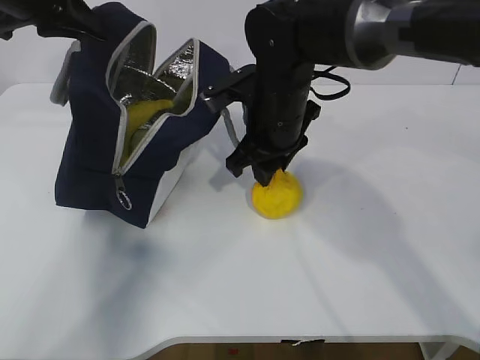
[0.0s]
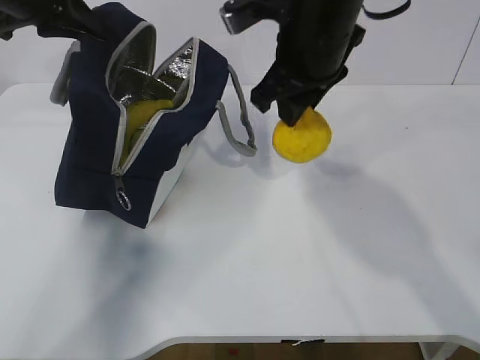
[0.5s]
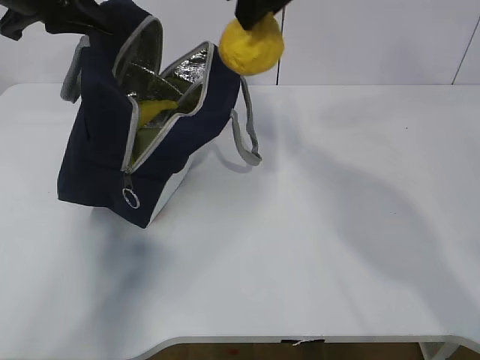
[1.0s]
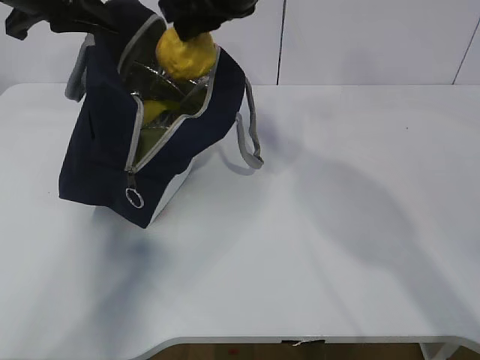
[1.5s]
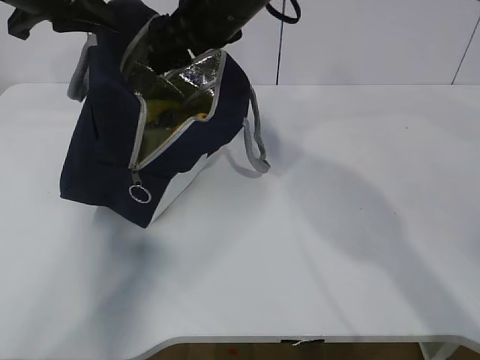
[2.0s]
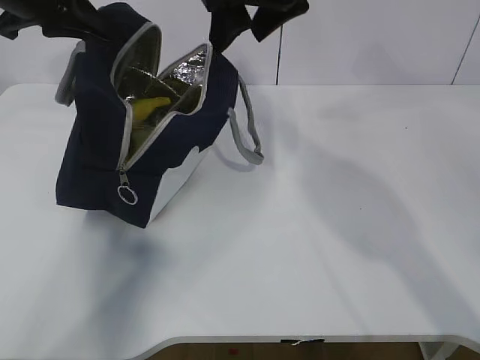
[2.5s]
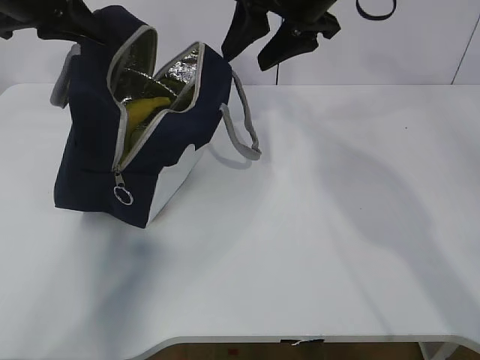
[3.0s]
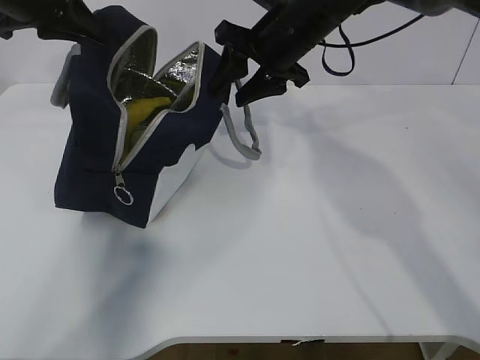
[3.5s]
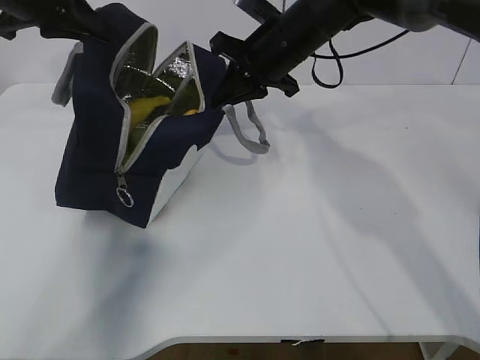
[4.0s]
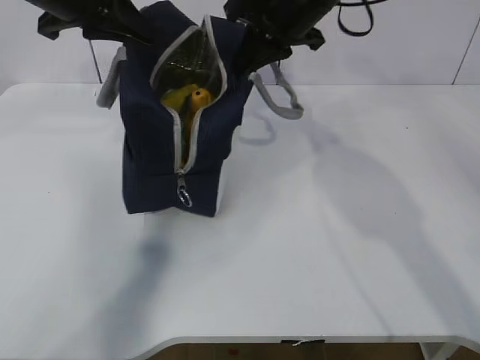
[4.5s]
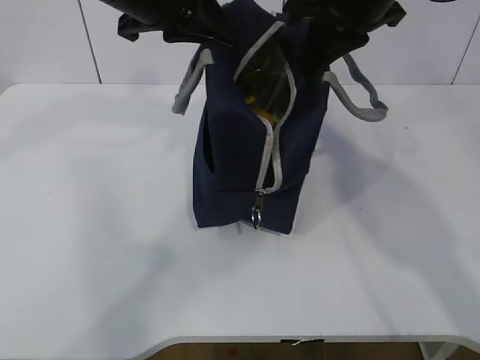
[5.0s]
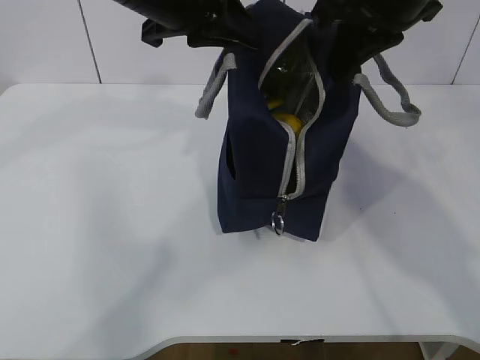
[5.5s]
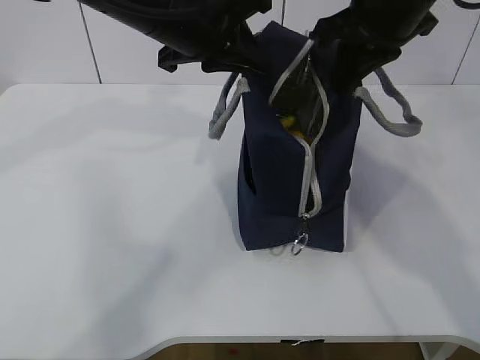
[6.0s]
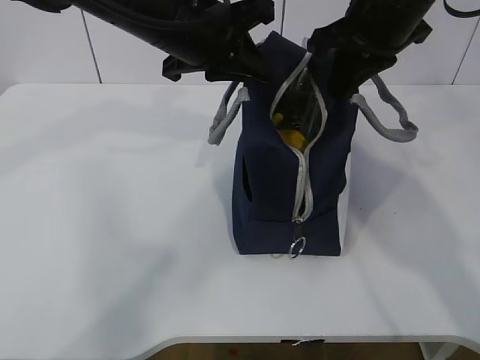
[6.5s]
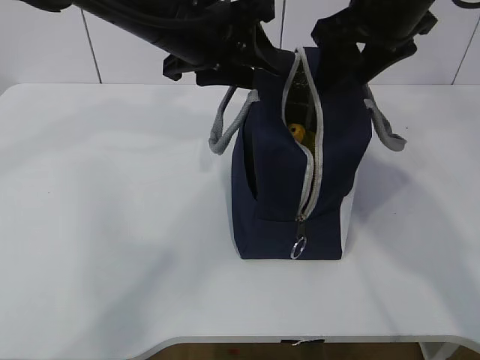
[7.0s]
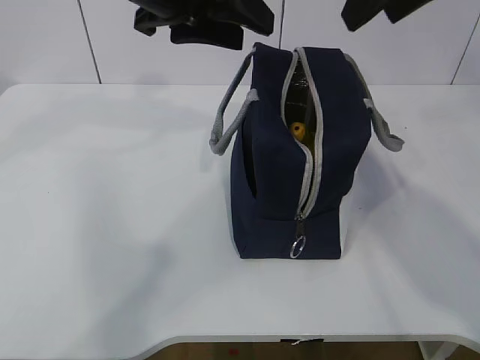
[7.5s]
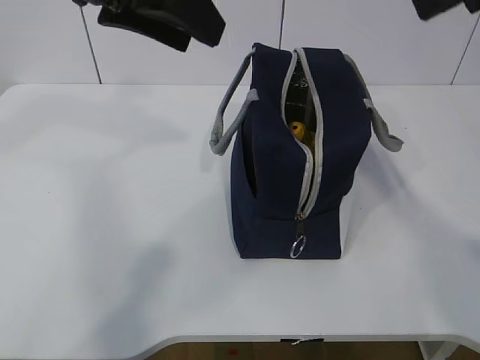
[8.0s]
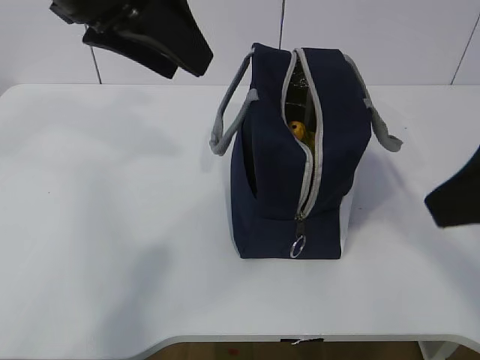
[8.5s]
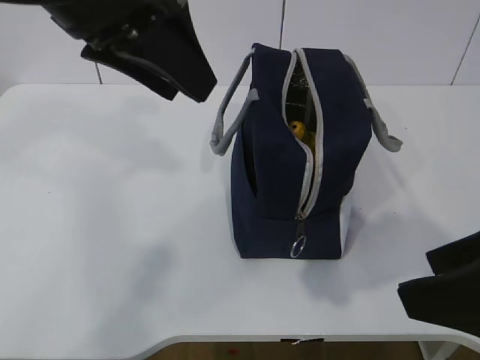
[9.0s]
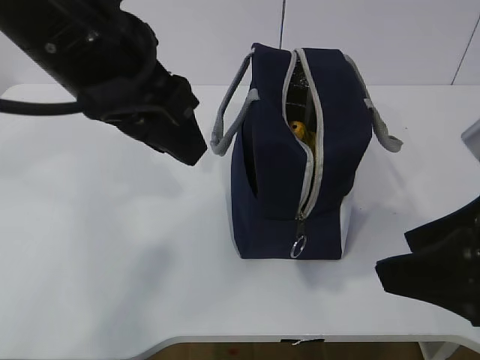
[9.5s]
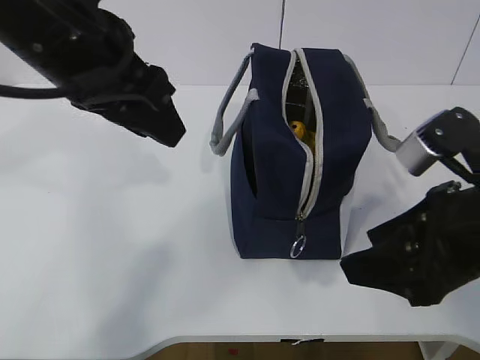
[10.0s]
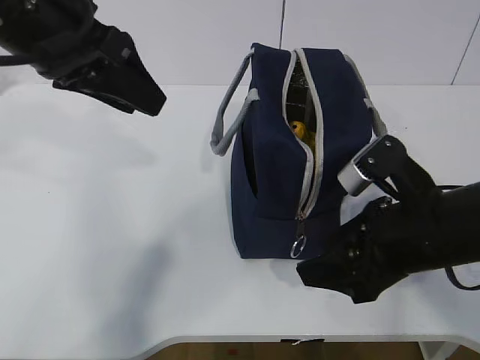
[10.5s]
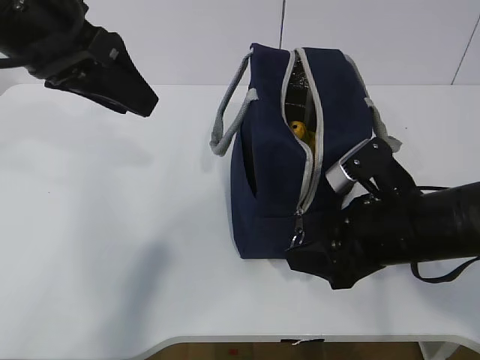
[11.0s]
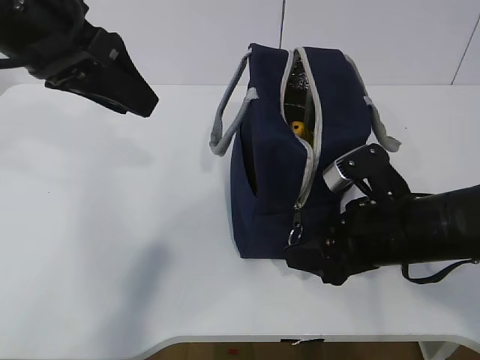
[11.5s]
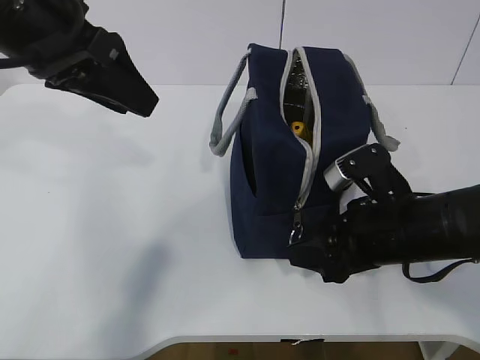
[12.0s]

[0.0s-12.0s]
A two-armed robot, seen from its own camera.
Step, 0.0s to 2.0s: Place the pear into the package with the right gripper.
0.0s to 2.0s: The right gripper travels upward by roughly 10 cm, and opens up.
2.0s to 4.0s: The right gripper is displaced to the right and downward by approximately 10 cm, and closes its fingers.
4.0s to 6.0s: The right gripper goes approximately 15 cm backward, upward and to the right, while the left gripper is displaced to the right by about 15 cm.
6.0s to 8.0s: The left gripper goes approximately 10 cm upward and backward, and opens its fingers. The right gripper goes approximately 15 cm backward and upward, and opens.
8.0s to 10.0s: The right gripper heads downward, covering some 20 cm, while the left gripper moves downward, approximately 5 cm.
10.0s to 12.0s: The left gripper changes place by roughly 5 cm. Meanwhile the right gripper heads downward and forward, covering roughly 10 cm.

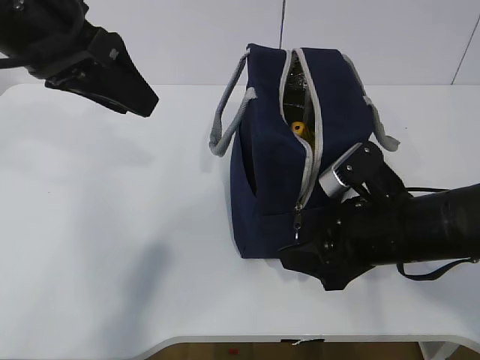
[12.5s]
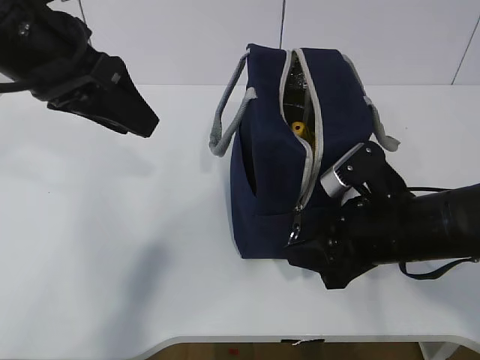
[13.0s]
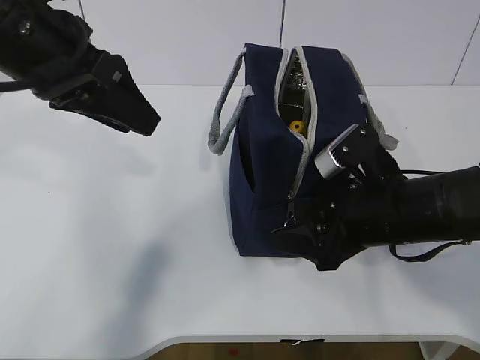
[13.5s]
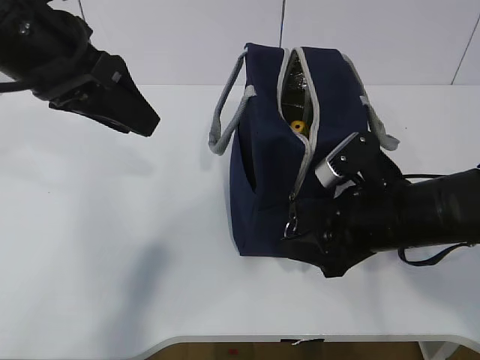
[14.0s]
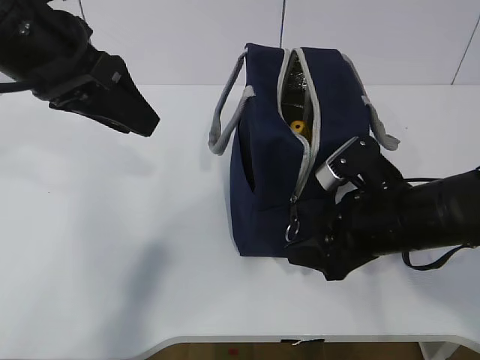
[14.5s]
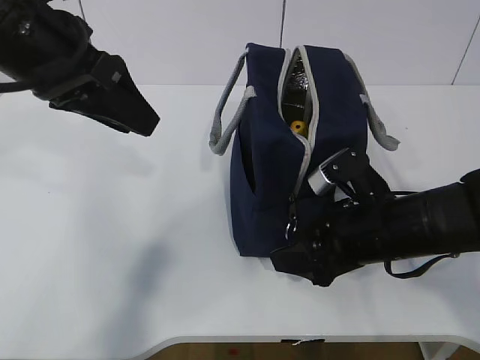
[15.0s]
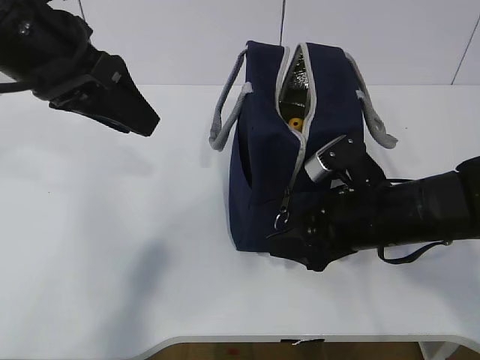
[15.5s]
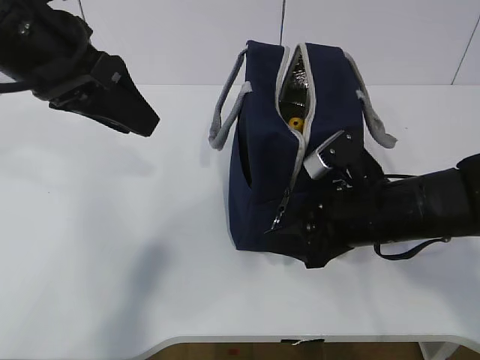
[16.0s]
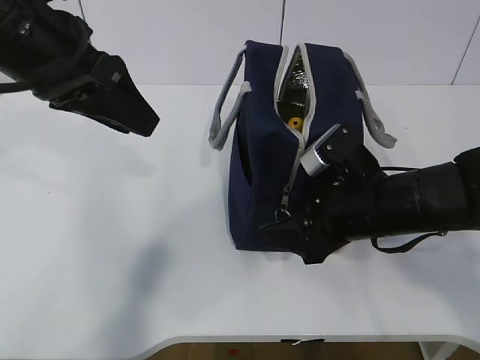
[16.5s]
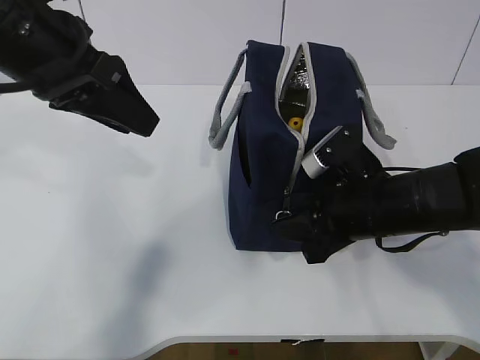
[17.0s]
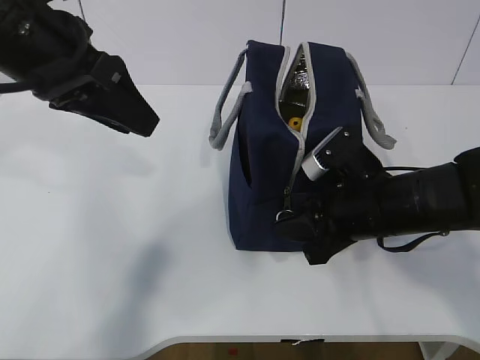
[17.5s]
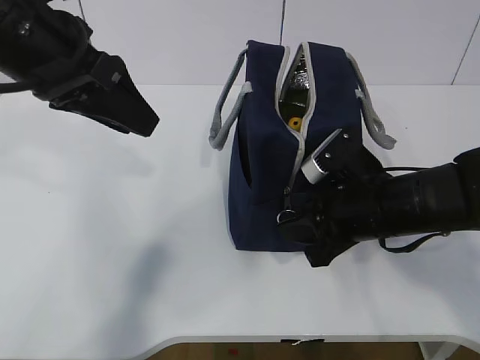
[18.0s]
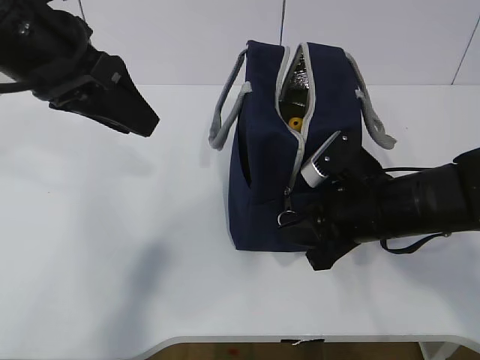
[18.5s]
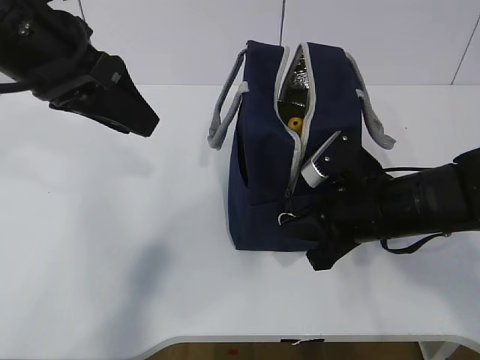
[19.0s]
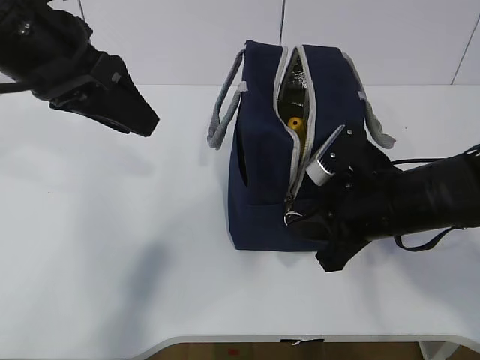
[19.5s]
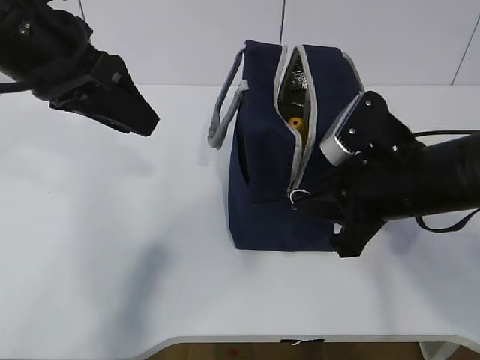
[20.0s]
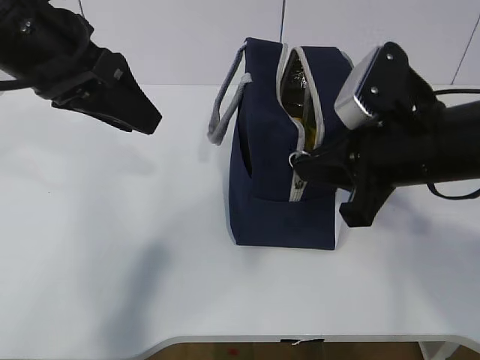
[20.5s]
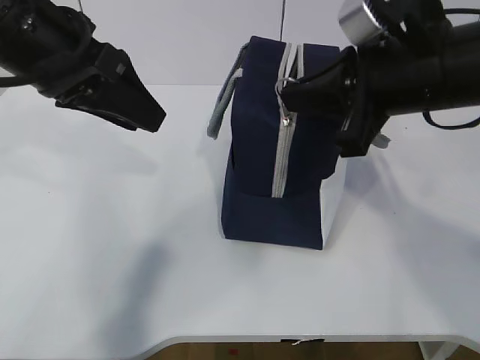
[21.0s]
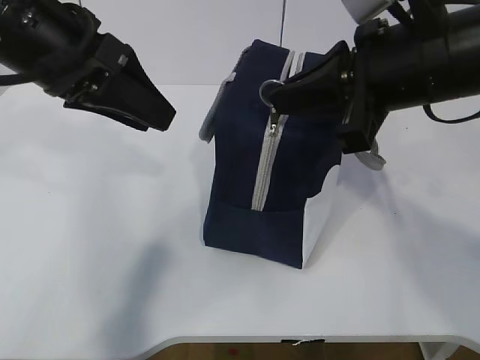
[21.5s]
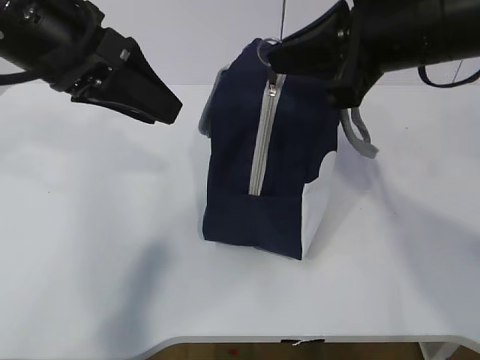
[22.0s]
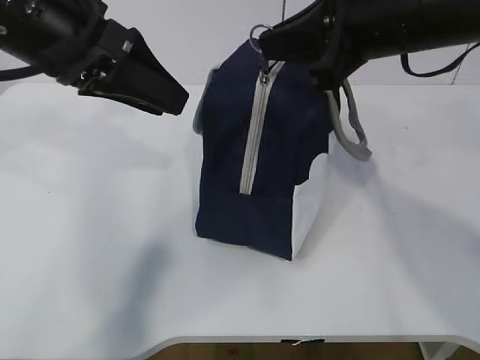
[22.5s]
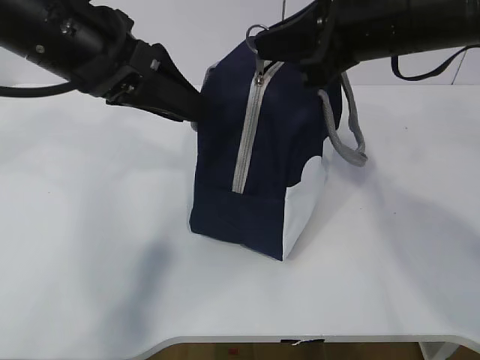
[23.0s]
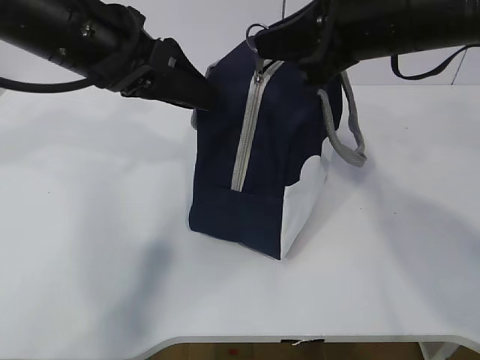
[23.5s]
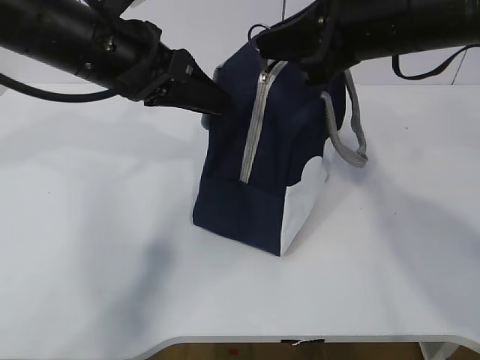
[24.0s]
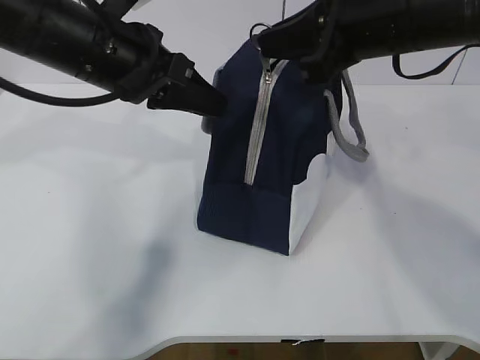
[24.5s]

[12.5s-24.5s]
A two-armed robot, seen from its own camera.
12.5s to 16.5s: The grippers stay close to where they were, moving slightly.
16.5s to 18.5s: The right gripper closes.
18.5s to 20.5s: The right gripper shifts some 10 cm upward, and closes up.
20.5s to 22.5s: The right gripper shifts some 10 cm upward.
22.5s to 24.5s: The left gripper shifts by approximately 5 cm, and closes its fingers.

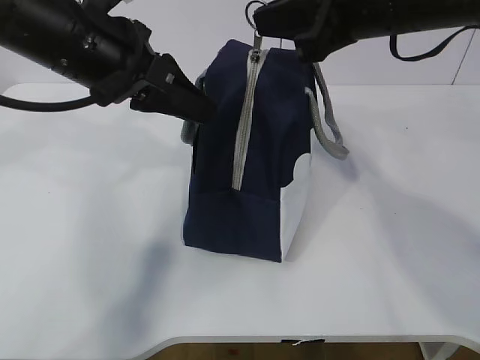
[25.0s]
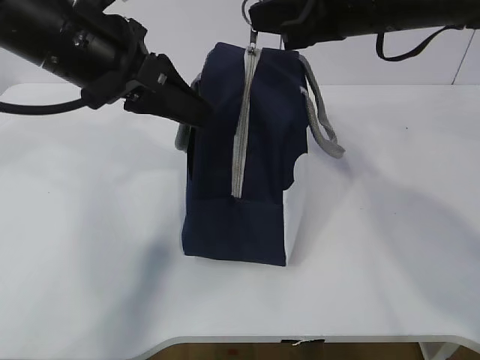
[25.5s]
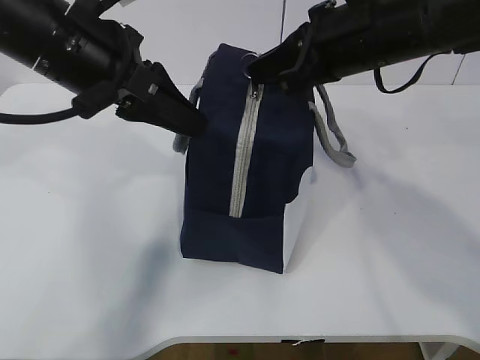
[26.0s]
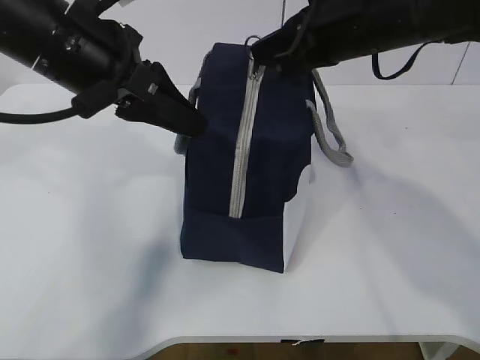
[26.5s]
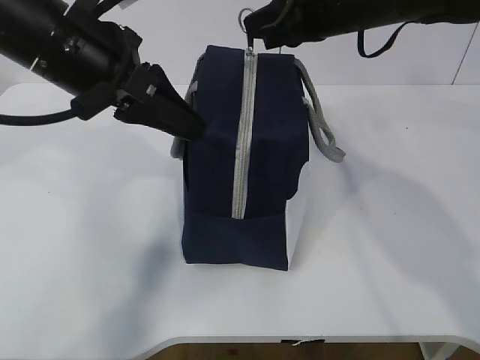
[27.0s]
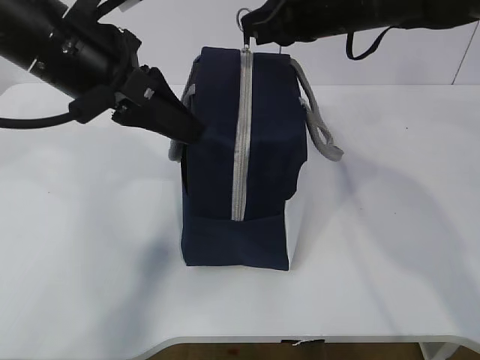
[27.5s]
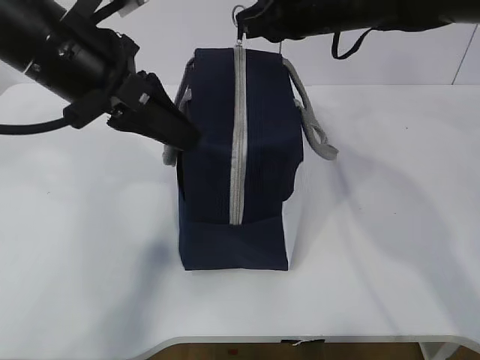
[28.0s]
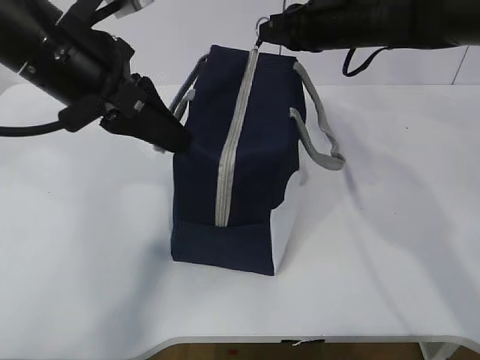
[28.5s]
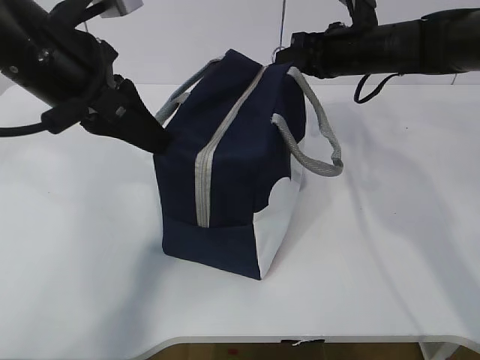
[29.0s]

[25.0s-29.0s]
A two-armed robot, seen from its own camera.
25.0s to 27.0s: The right gripper shifts roughly 5 cm forward.
27.0s to 29.0s: The right gripper moves forward, downward and to the right, approximately 15 cm.
